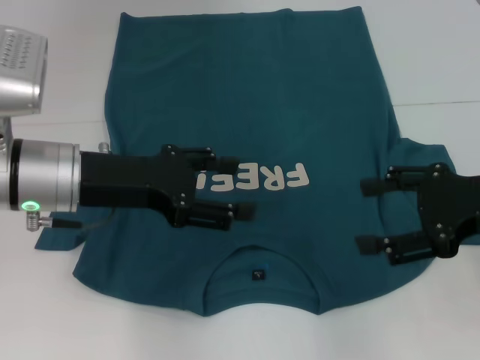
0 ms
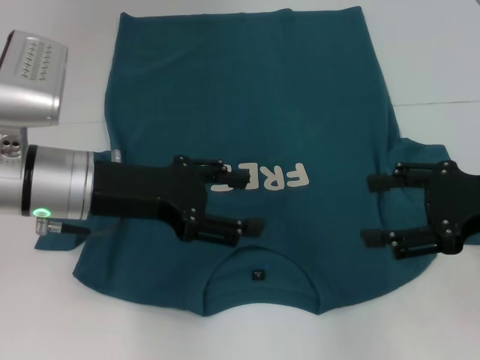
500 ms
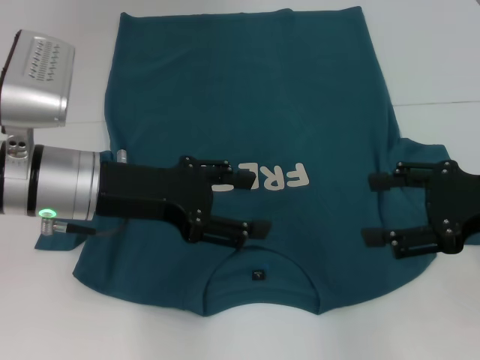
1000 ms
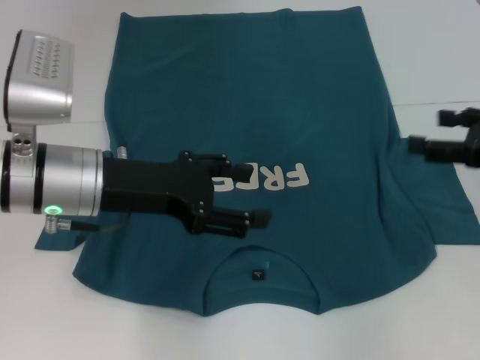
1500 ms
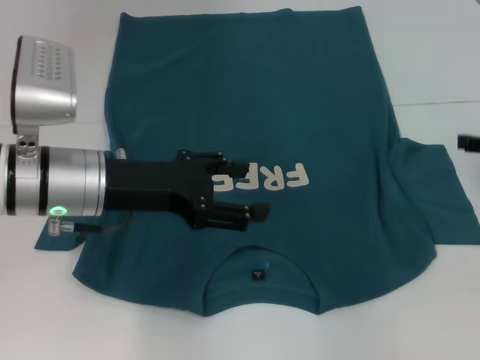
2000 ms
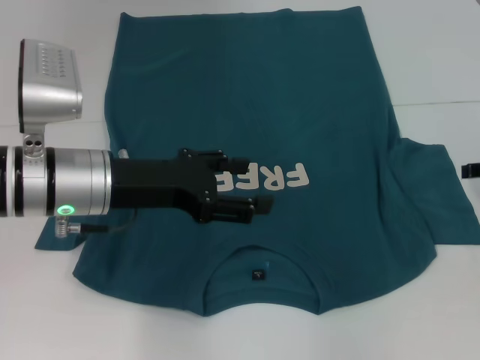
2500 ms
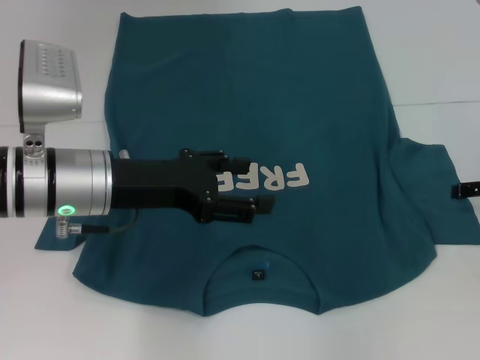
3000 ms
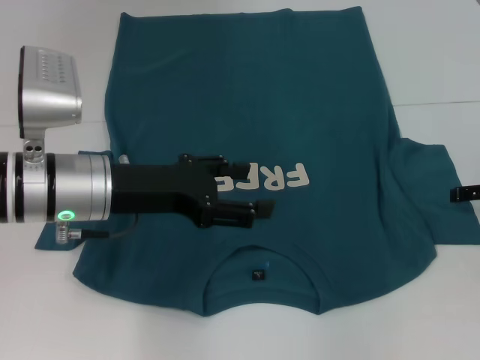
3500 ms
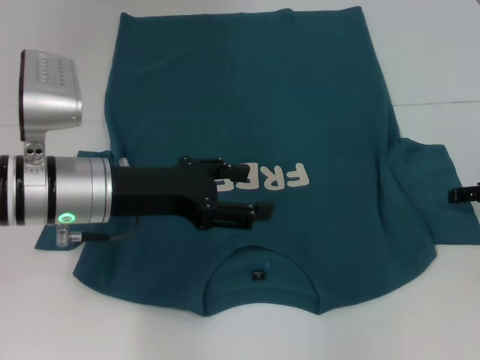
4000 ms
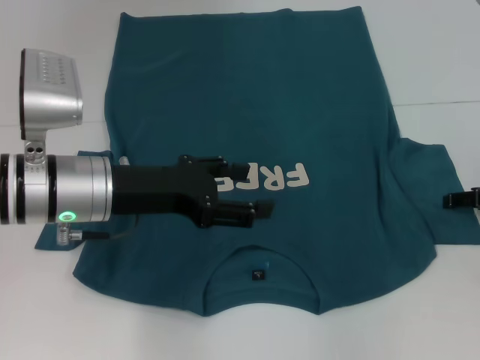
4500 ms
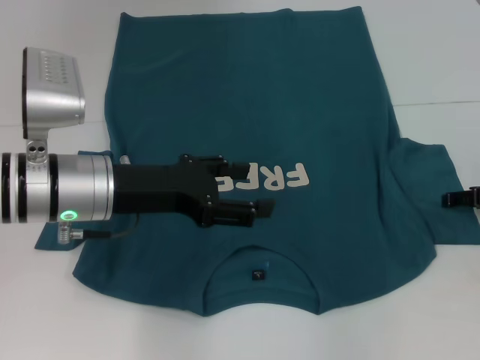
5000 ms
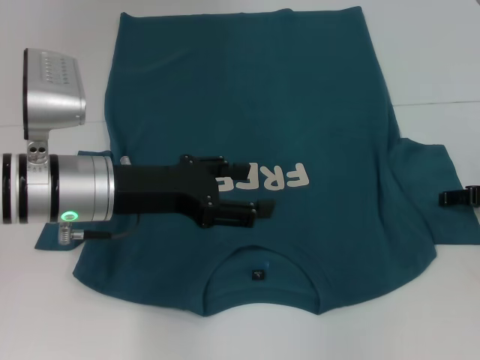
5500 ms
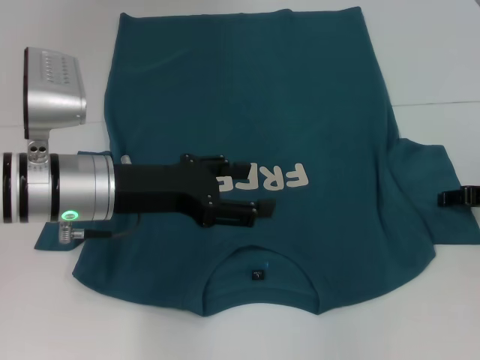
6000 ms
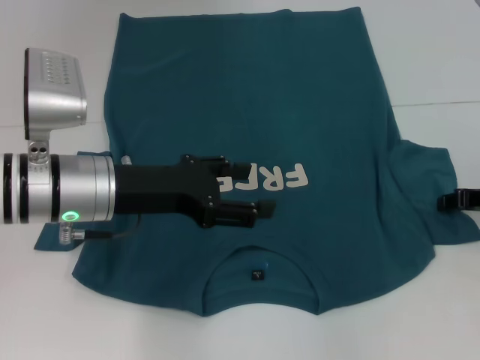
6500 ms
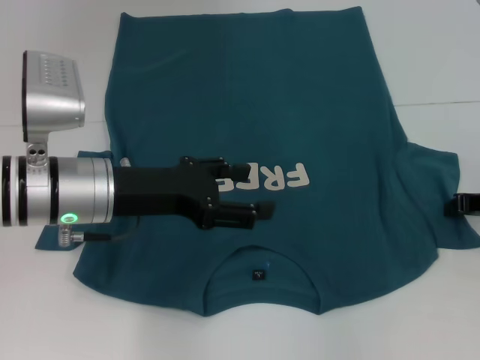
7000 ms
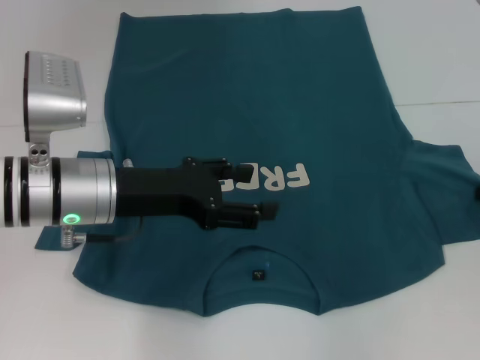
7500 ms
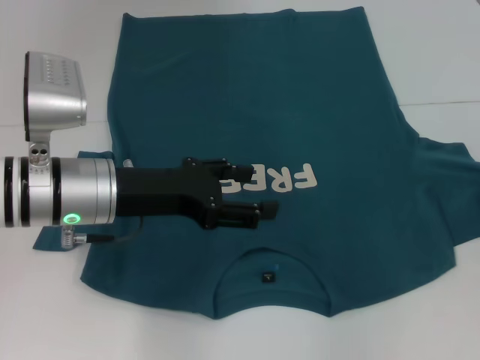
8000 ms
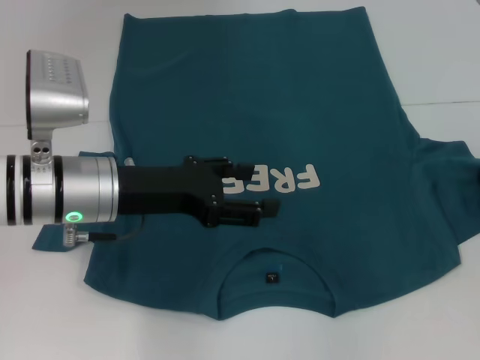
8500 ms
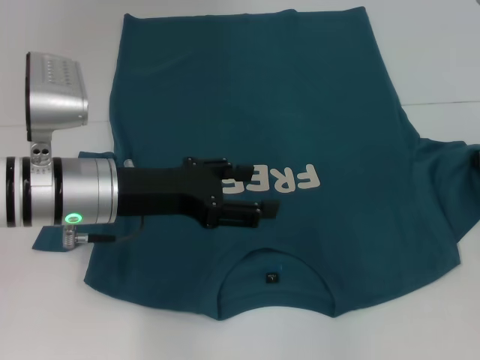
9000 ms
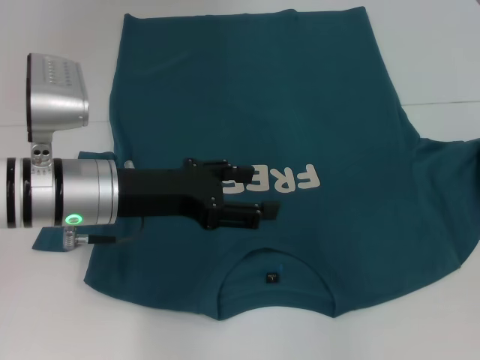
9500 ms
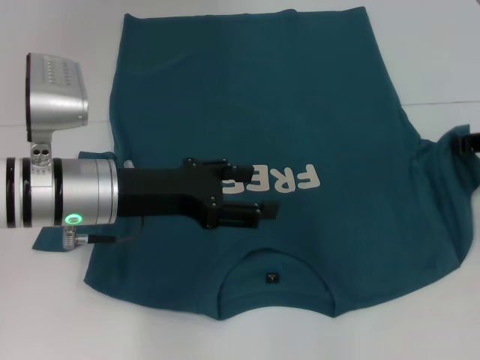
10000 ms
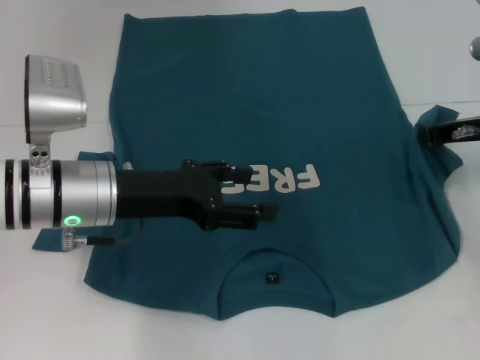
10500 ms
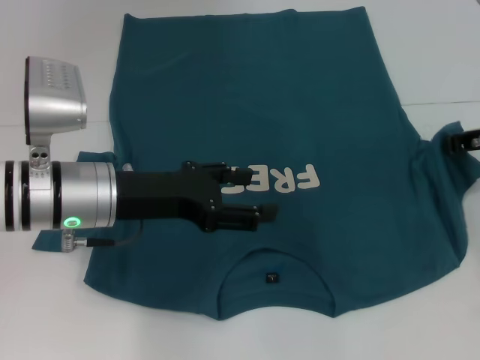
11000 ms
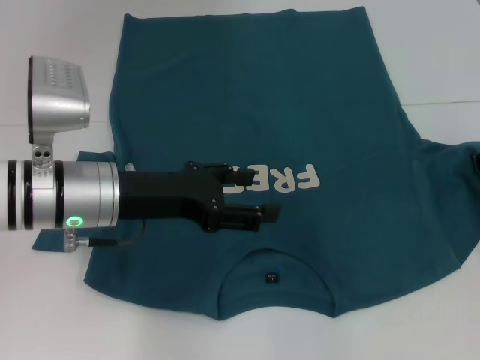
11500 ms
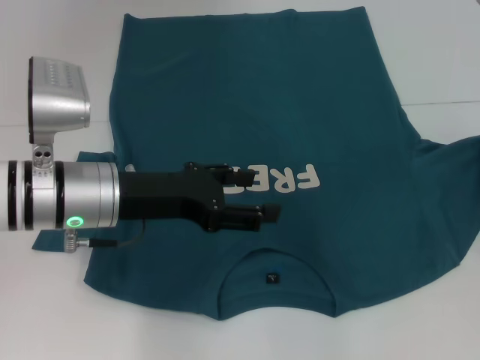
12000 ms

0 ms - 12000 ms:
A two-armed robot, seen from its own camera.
0 ms - 2000 ms: The right gripper shifts approximately 10 cm to the right and forward.
2000 ms - 4000 ms: There are only small adjustments of the grippers.
4000 ms - 6000 ms: The grippers move only a little.
6000 ms - 8000 ms: The right gripper closes its fingers.
8000 ms - 10000 ms: The right gripper moves to the left, about 5 cm.
10000 ms - 12000 ms: The grippers move only a little.

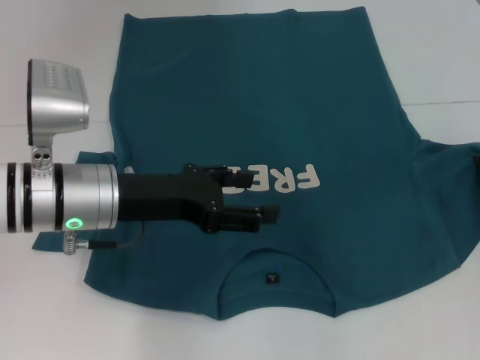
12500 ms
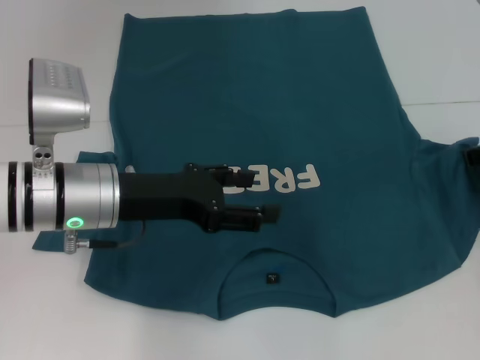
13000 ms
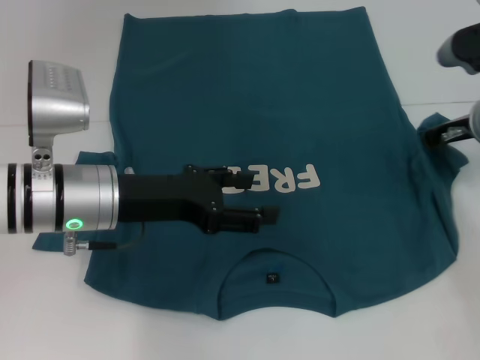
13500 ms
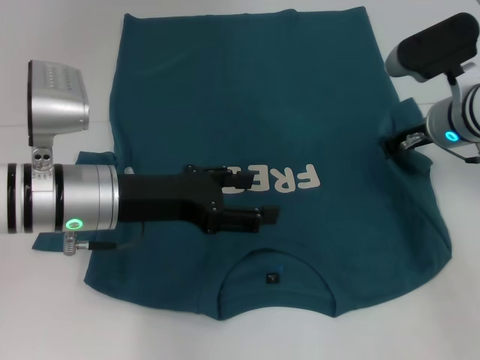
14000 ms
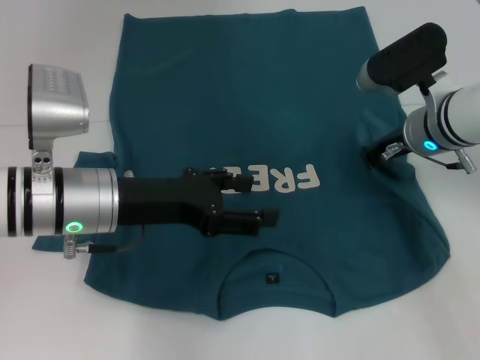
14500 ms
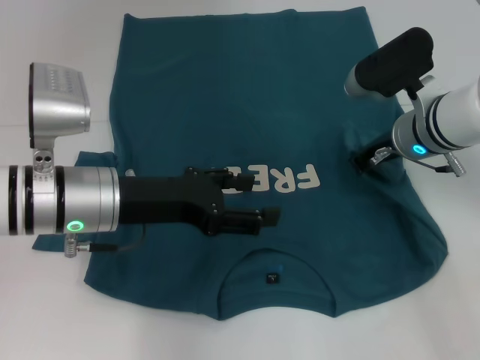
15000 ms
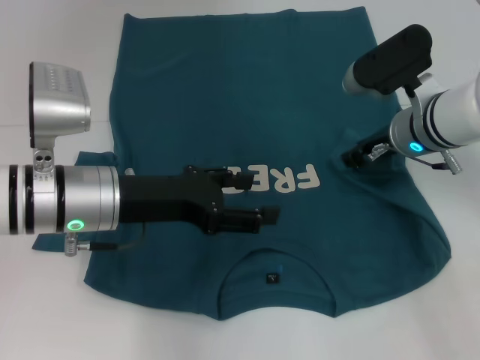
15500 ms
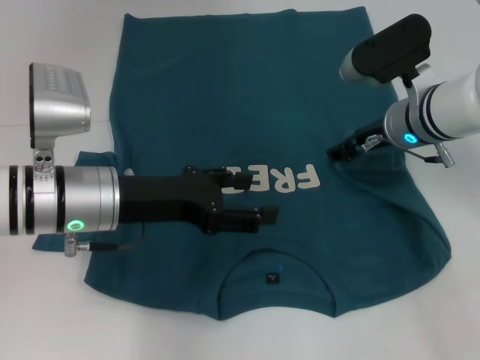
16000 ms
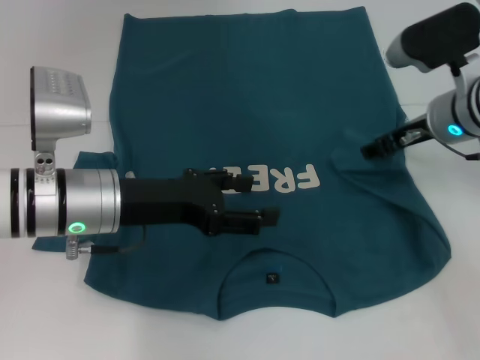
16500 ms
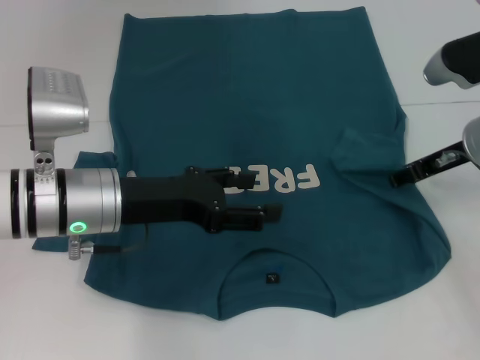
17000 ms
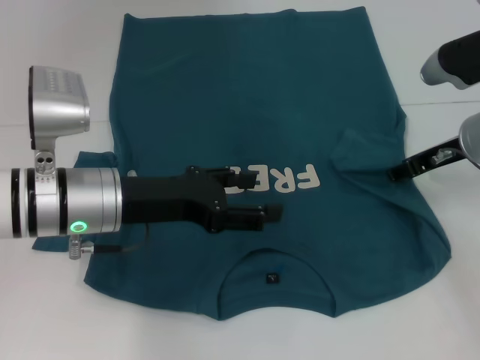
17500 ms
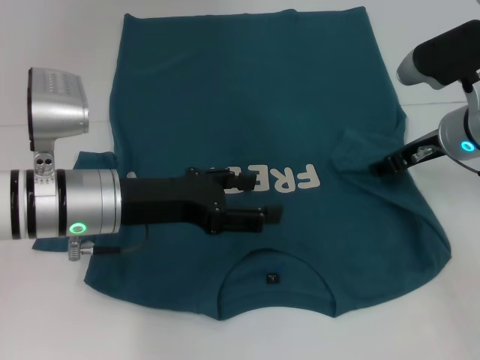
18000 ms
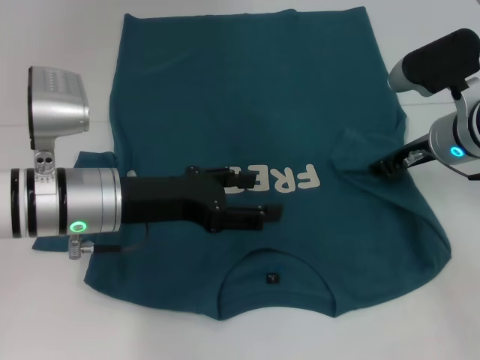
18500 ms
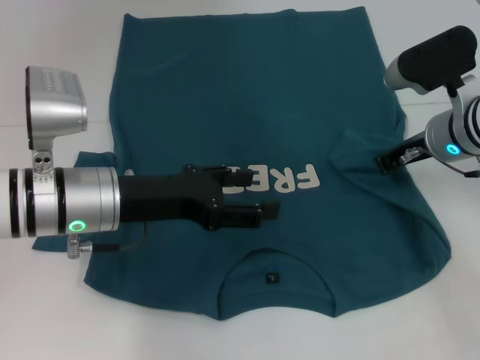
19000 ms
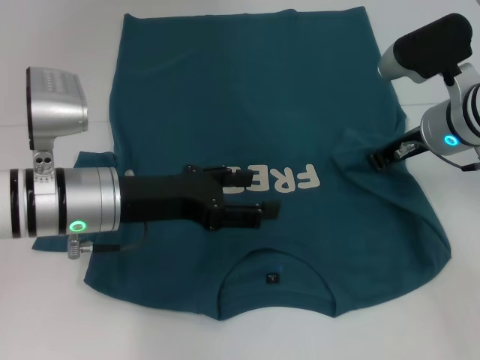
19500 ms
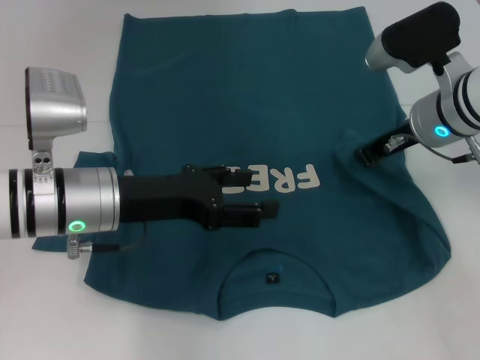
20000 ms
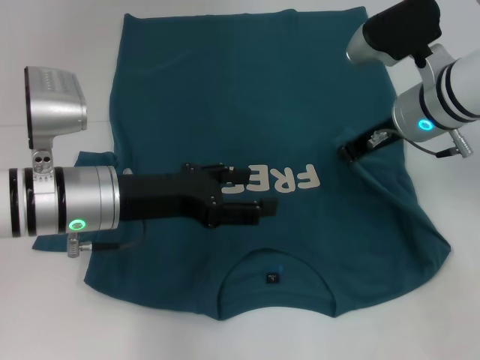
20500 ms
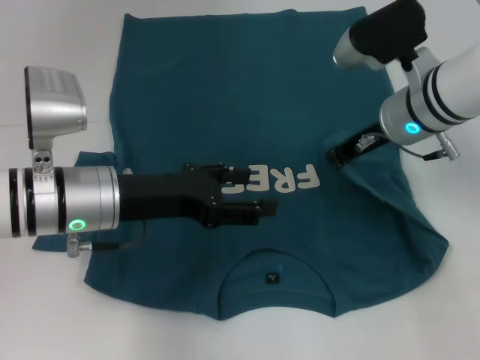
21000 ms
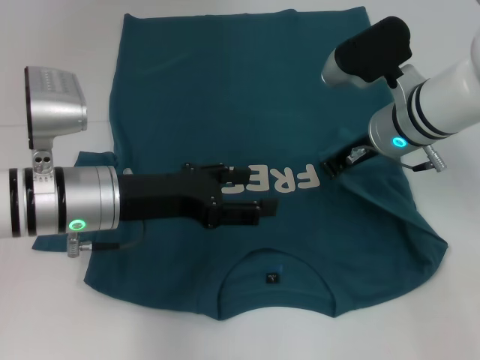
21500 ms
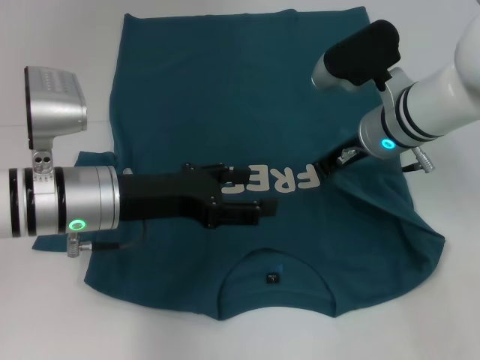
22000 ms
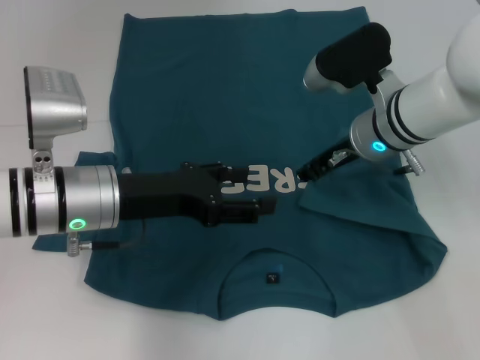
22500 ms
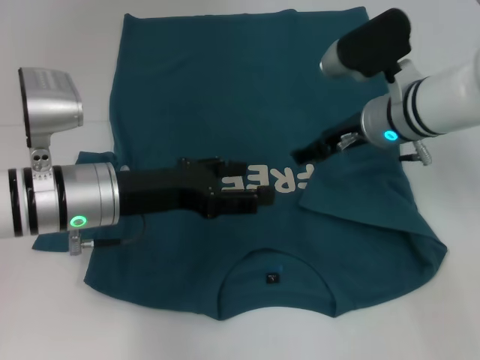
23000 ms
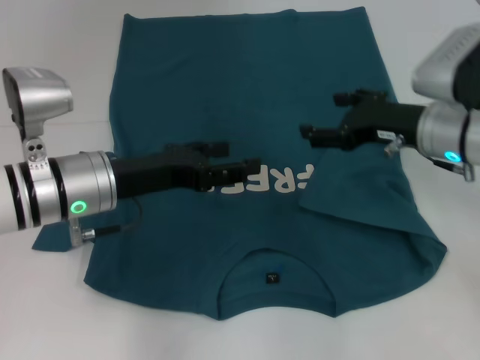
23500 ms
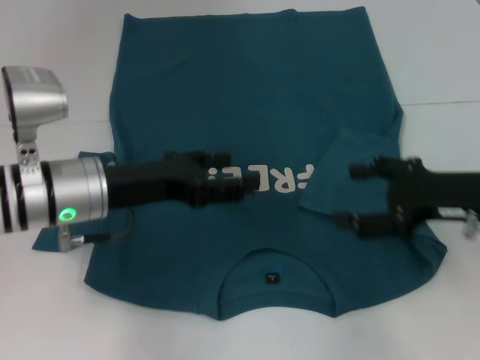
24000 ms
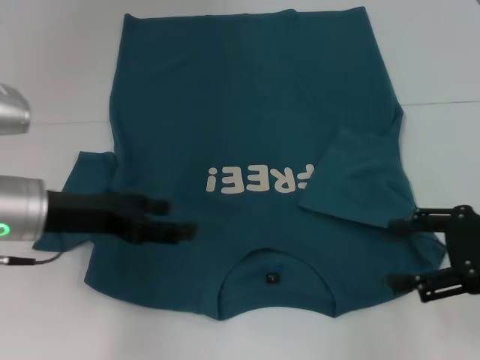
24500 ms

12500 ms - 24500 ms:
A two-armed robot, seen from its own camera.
Step, 12500 ms - 22500 ms: Fold the bottom right sleeve to the right.
12500 ms - 14500 ms: The right gripper travels to the left by about 15 cm.
14500 ms - 16500 ms: The right gripper opens up.
16500 ms - 18500 ms: The grippers move only a little.
18500 ms - 20500 ms: The right gripper ends up some 5 cm from where it was, and closes its fingers.
20500 ms - 22500 ms: The grippers stay close to where they were, moving slightly.
22500 ms - 24500 ms: The right gripper heads backward and to the right, covering about 20 cm, and opens up. The left gripper is displaced to the left by roughly 5 cm.

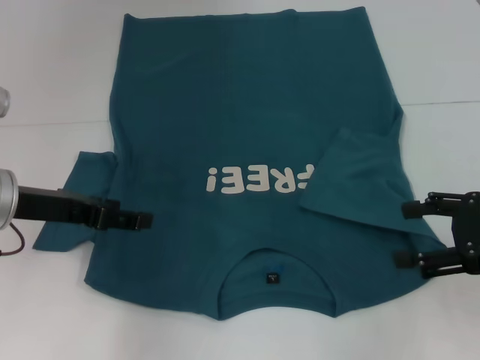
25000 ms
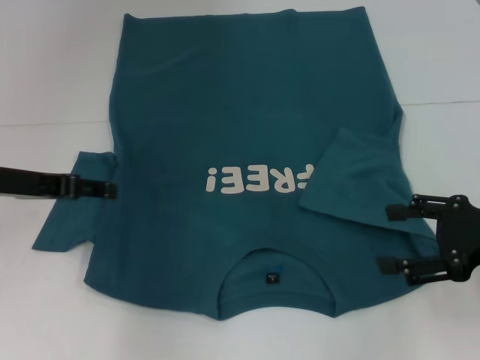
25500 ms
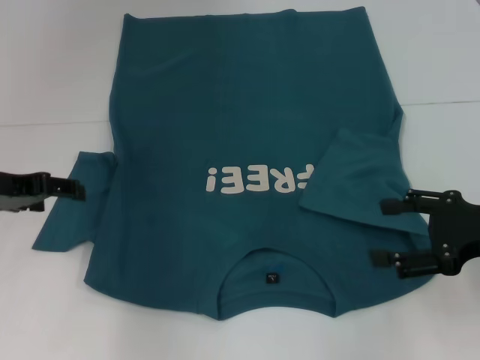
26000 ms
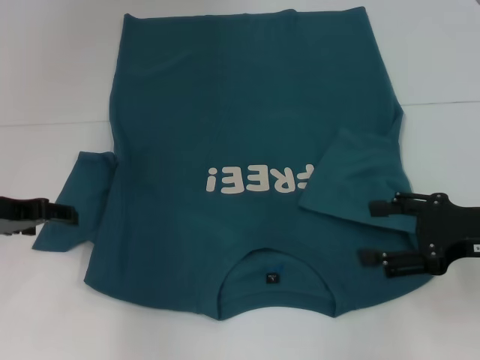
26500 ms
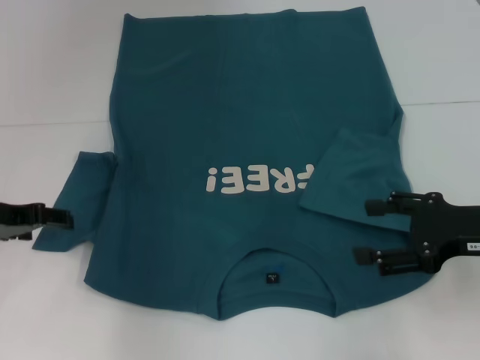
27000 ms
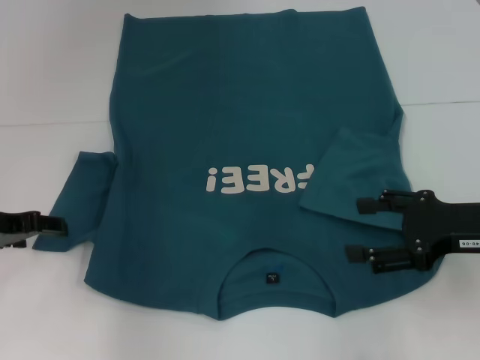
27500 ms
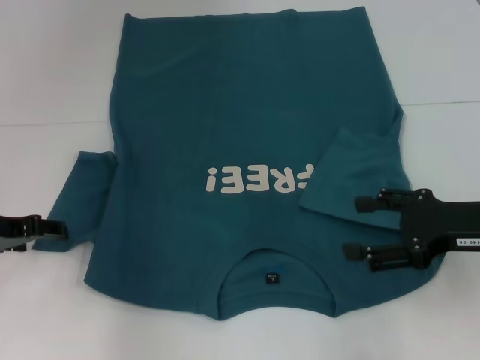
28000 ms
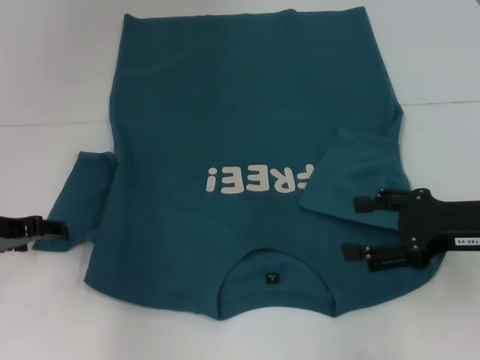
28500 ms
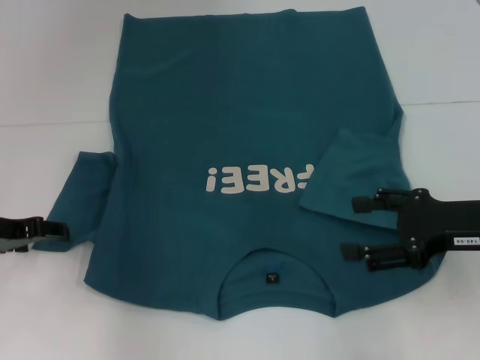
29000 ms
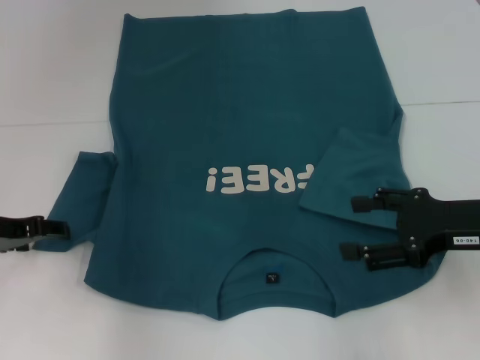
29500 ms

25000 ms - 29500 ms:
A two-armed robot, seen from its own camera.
25000 ms - 27000 ms: The left gripper changes place by approximately 5 cm.
27000 ms - 29500 ms: The grippers stay close to where they were, moving slightly.
